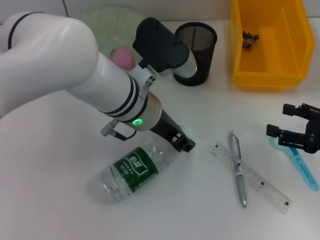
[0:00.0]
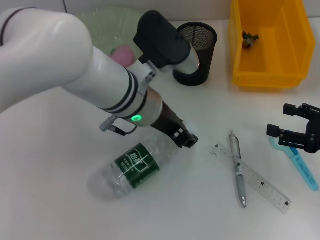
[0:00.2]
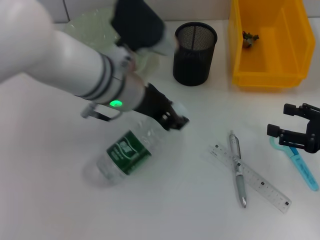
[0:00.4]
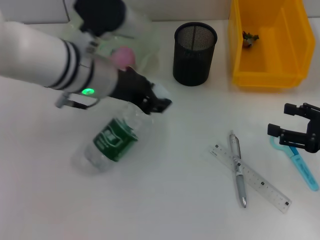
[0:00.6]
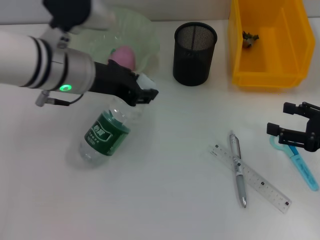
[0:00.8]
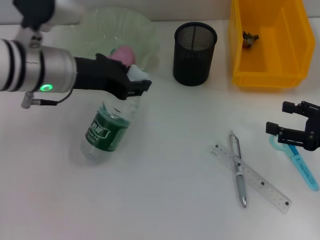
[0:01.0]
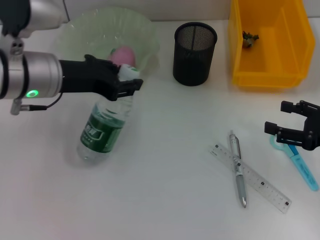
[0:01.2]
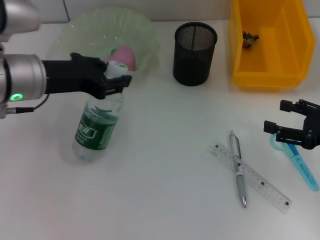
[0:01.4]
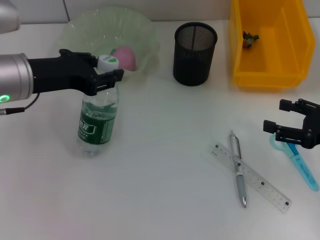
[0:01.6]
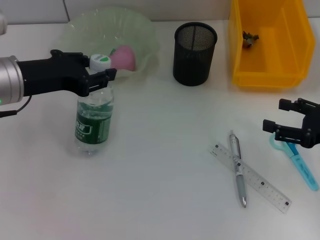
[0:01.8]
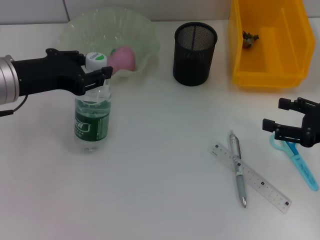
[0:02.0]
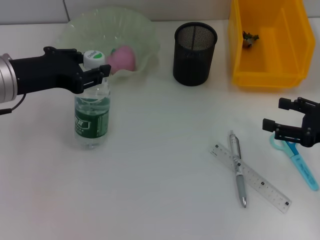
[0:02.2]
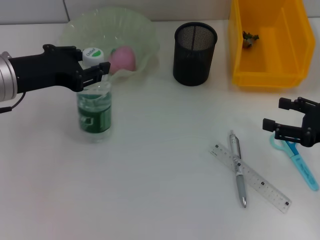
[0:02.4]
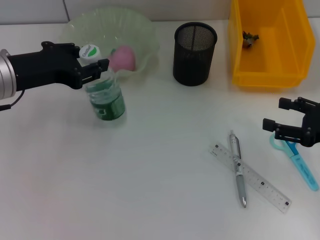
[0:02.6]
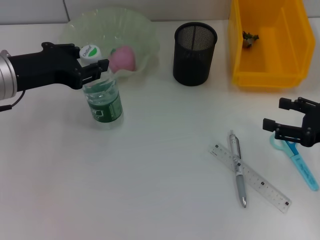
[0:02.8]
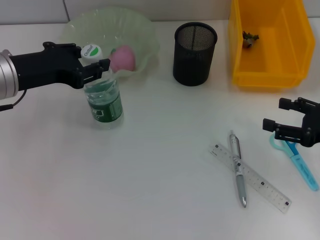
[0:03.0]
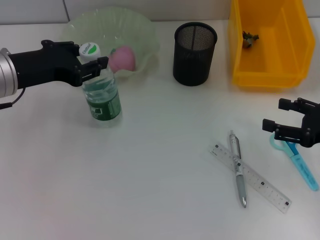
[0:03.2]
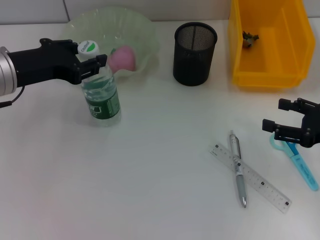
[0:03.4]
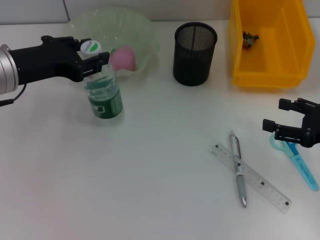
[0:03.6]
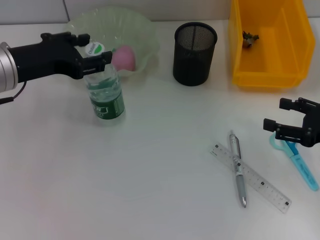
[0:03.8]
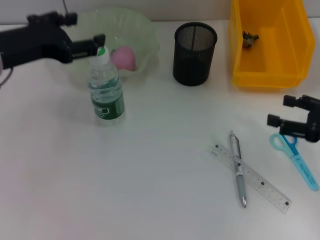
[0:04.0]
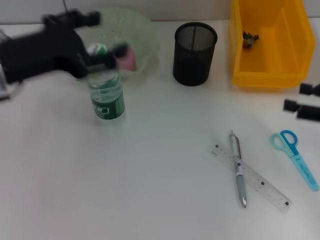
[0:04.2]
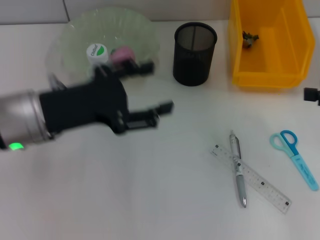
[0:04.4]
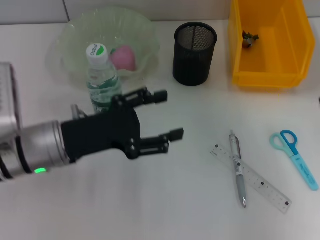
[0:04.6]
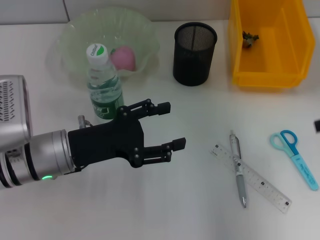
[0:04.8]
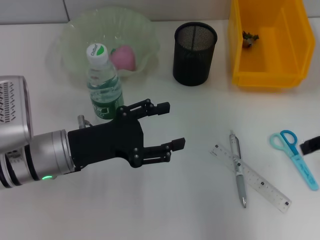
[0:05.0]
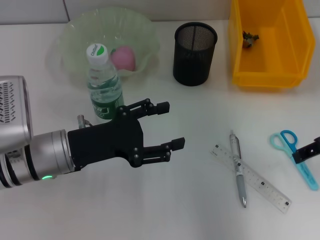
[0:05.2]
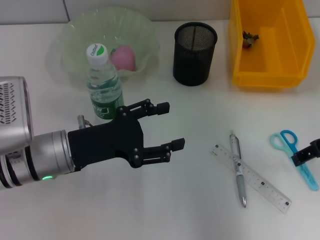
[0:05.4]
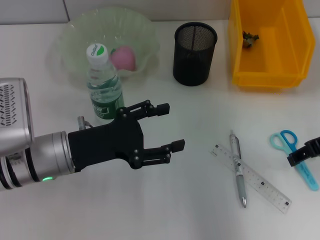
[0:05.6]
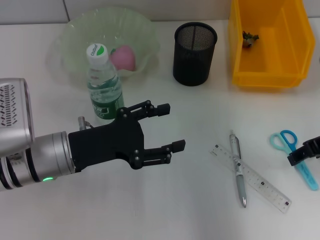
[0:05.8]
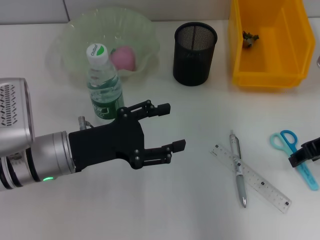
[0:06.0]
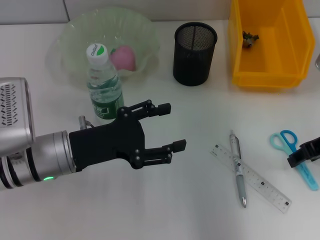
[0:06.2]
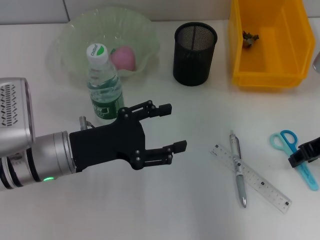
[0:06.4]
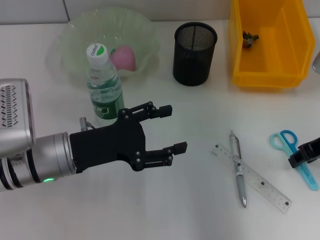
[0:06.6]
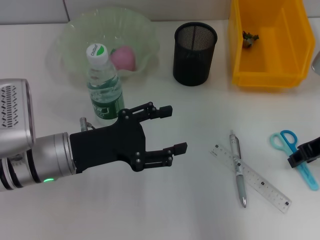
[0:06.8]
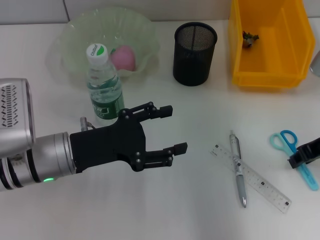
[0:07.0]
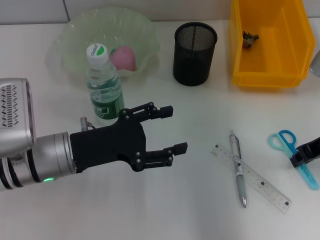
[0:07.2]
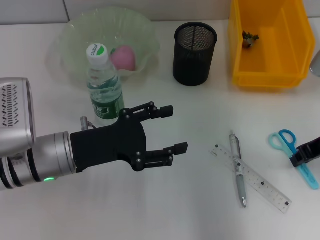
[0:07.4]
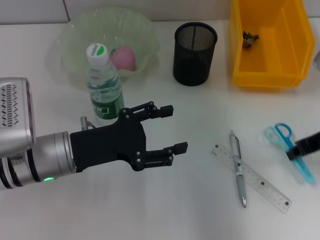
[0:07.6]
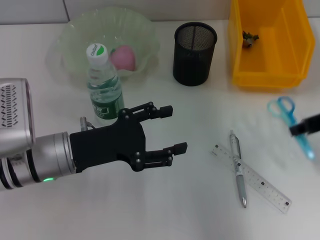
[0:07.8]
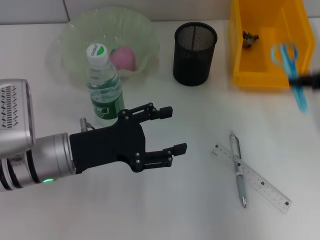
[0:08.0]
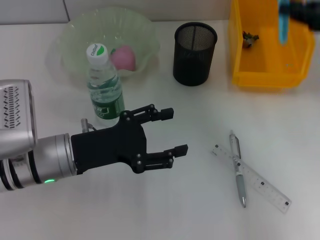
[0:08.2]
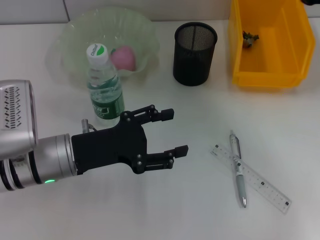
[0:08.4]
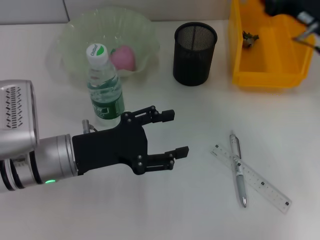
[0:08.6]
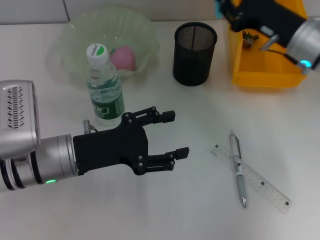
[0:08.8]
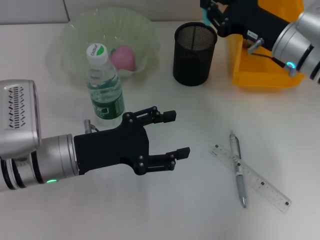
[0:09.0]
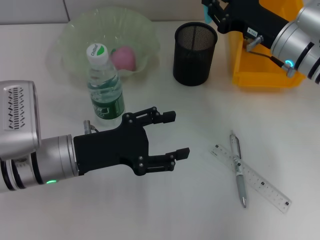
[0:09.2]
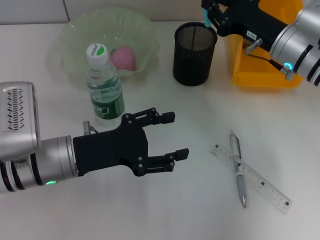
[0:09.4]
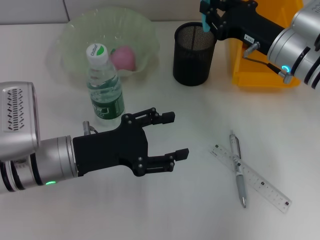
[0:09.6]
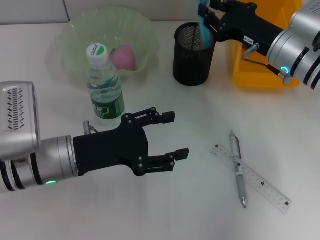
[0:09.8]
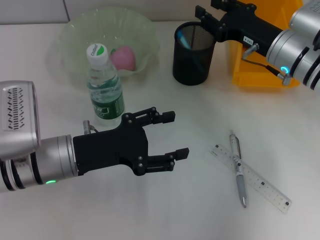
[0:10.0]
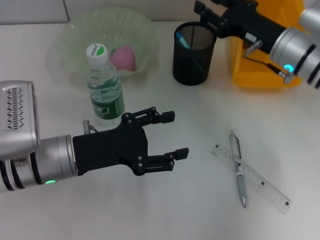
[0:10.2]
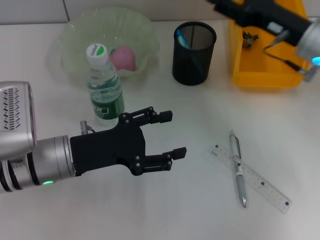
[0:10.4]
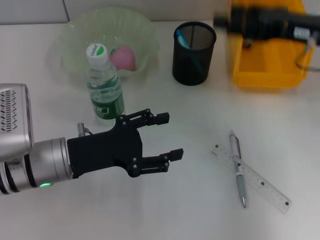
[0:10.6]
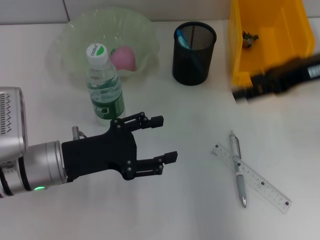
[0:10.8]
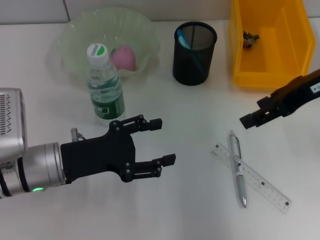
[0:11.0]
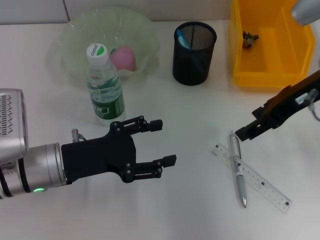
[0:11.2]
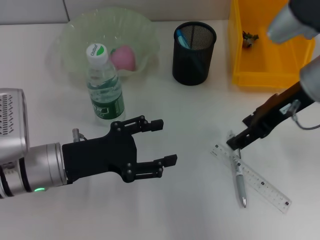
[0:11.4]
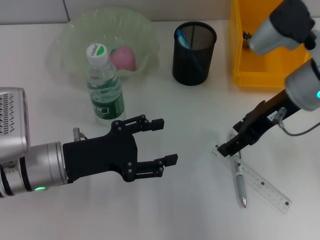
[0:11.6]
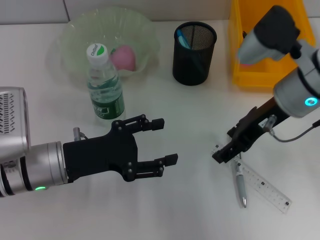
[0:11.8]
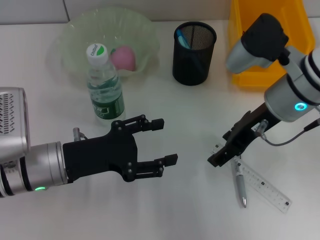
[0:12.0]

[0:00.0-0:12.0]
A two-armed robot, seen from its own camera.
Step, 0:00.2 to 0:04.0: Place the water bottle on the table with the left hand.
Step, 0:04.4 to 0:07.0: Grab the blue scissors with the right hand.
Step, 0:07.4 to 0:09.8: Place the blue scissors into the pen holder with the right hand.
0:00.0 to 0:01.6: The left gripper travels to the left by approximately 15 cm.
0:01.6 to 0:03.0: There are only small adjustments of the grippers.
0:03.0 to 0:04.4: The left gripper shifts by approximately 5 cm, and opens up; the right gripper is displaced upward by approximately 10 cm.
0:04.4 to 0:06.0: The left gripper goes roughly 10 cm downward; the right gripper moves to the left, approximately 10 cm.
0:06.0 to 0:07.6: The right gripper closes.
0:07.6 to 0:09.0: The right gripper heads forward and to the left, covering roughly 10 cm, and travels upward and back again, roughly 5 cm each way.
0:09.0 to 0:10.4: The right gripper opens up.
0:10.4 to 0:12.0: The right gripper travels to the left by about 5 cm, and opens up.

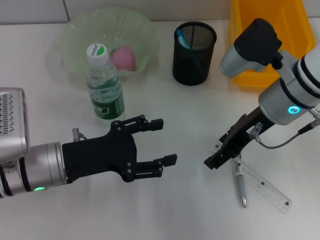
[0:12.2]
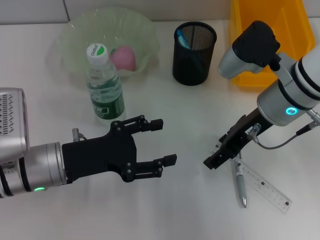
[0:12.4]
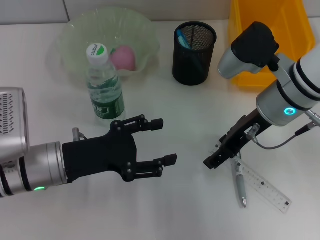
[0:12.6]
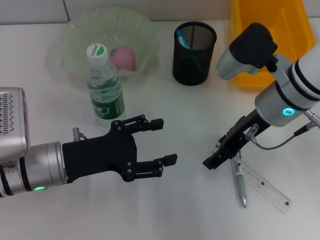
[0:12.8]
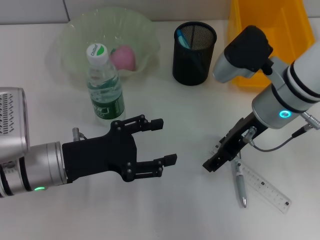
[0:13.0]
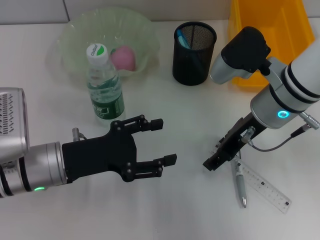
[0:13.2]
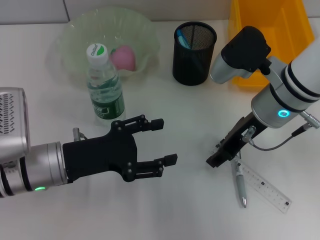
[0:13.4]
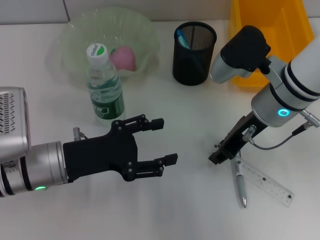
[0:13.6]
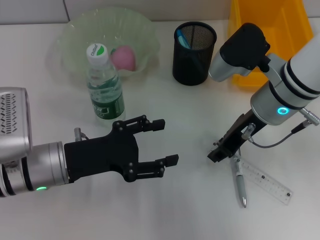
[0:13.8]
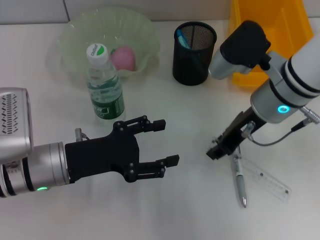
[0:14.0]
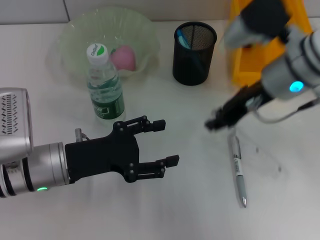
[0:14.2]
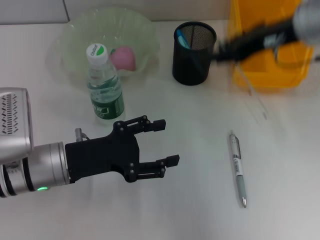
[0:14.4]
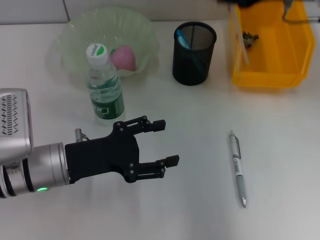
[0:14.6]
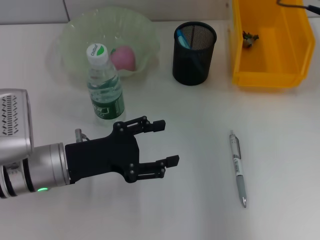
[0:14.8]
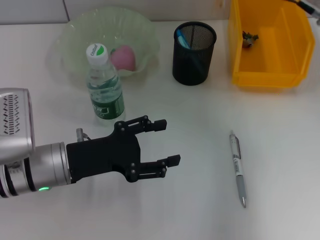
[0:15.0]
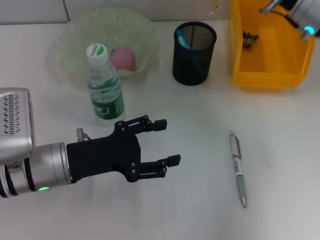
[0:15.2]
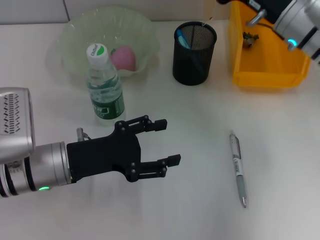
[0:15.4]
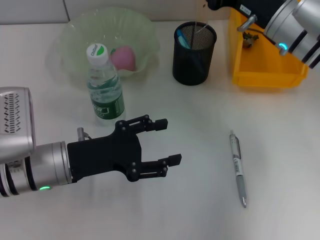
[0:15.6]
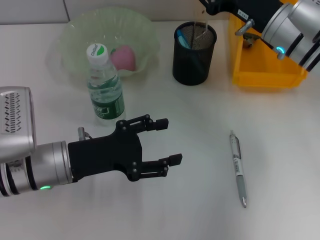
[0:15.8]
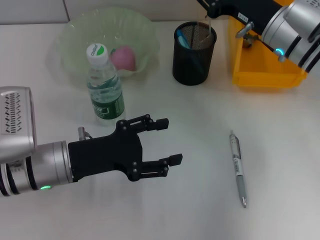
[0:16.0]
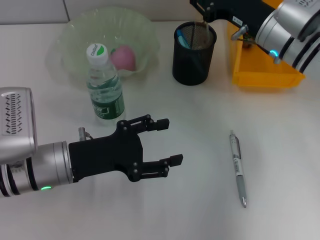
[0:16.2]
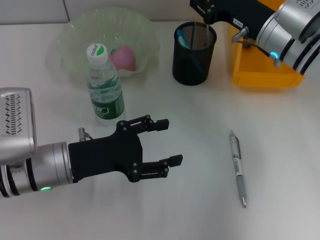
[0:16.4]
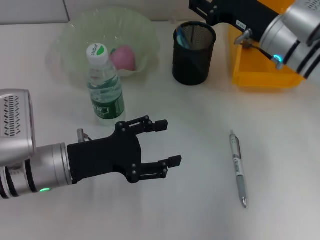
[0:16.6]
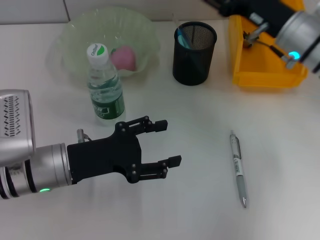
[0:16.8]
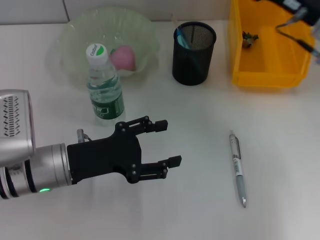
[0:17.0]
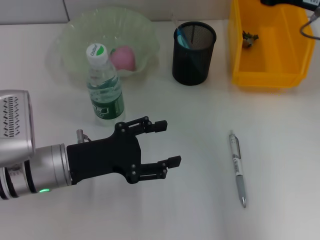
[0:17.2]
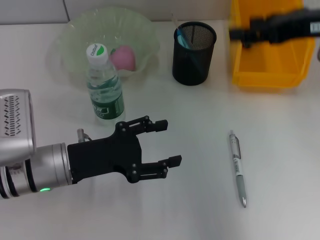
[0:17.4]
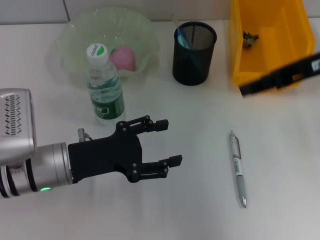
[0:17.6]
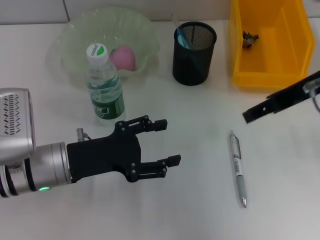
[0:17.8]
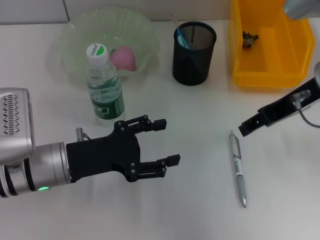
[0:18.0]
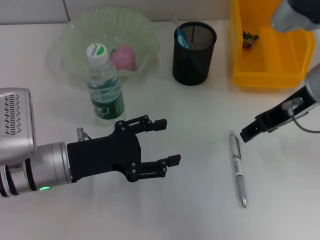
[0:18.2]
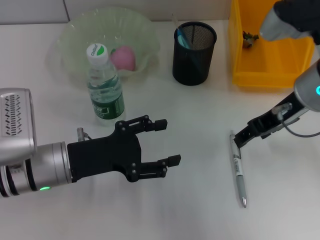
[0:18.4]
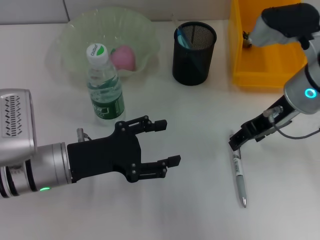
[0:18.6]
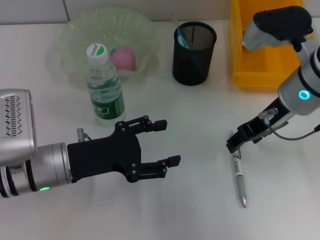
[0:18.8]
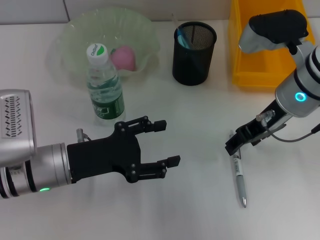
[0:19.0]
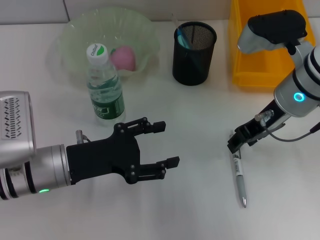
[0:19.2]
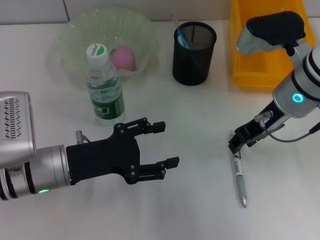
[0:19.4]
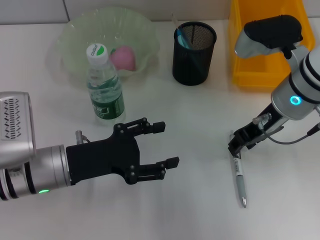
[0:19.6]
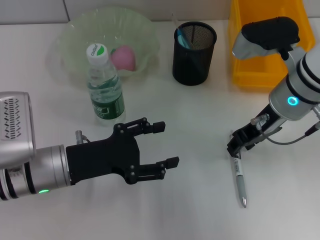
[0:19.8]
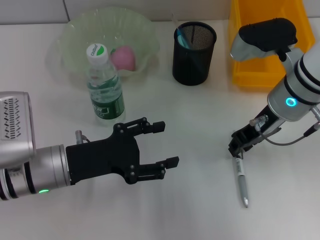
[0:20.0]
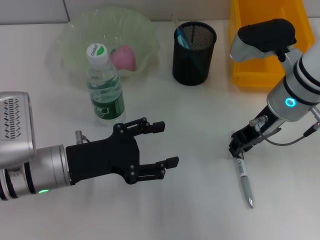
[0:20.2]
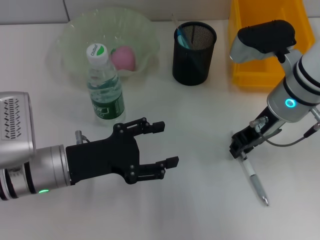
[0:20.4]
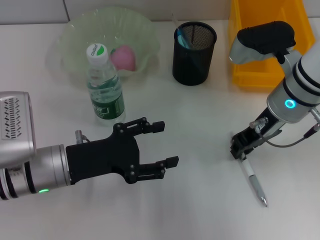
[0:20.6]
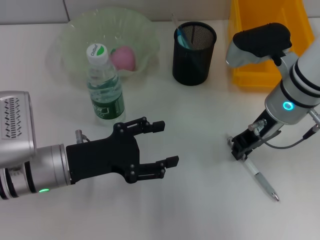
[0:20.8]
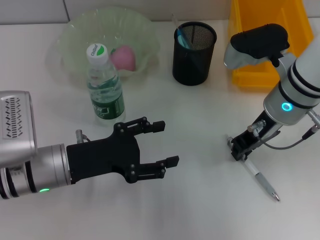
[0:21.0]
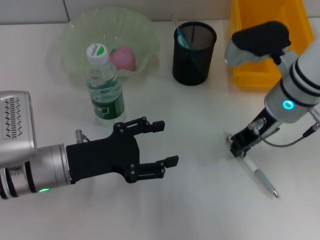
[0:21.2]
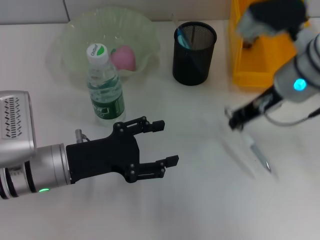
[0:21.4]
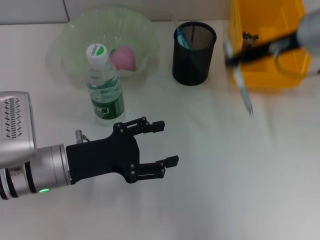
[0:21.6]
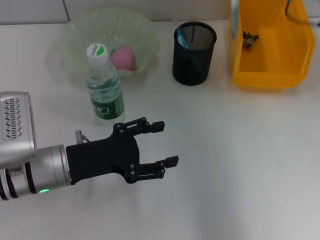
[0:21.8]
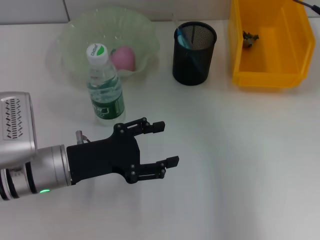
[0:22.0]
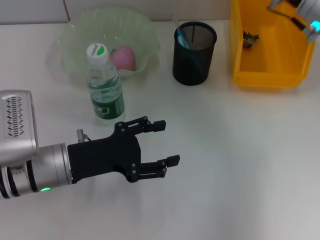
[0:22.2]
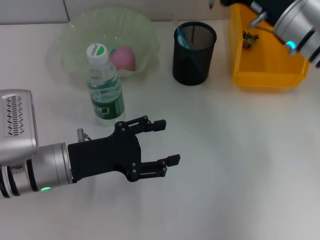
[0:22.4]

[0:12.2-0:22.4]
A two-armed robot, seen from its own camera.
Step, 0:13.8 to 0:17.0: Place the ruler into the pen holder with the right hand.
Step, 0:17.4 to 0:21.0: Grab the gray spring-action pen with the right hand.
0:12.2 to 0:13.6: The right gripper closes up.
0:13.6 to 0:15.2: The right gripper heads to the right and forward, covering approximately 10 cm, and goes upward and returns, some 10 cm each way.
0:15.2 to 0:16.6: The right gripper ends up about 5 cm from where it was.
0:16.6 to 0:18.0: The right gripper goes about 10 cm upward and backward.
0:18.0 to 0:19.4: The right gripper goes some 5 cm downward.
0:19.4 to 0:21.0: The right gripper closes.
0:21.0 to 0:22.4: The right gripper moves forward, about 5 cm, and moves some 10 cm upward and comes back.
